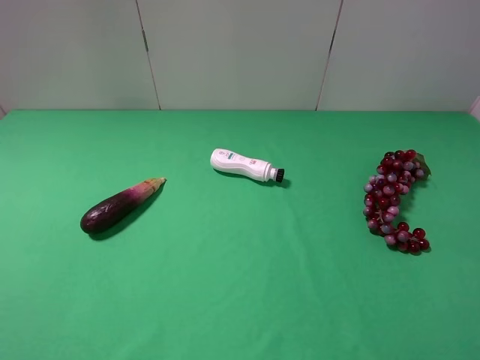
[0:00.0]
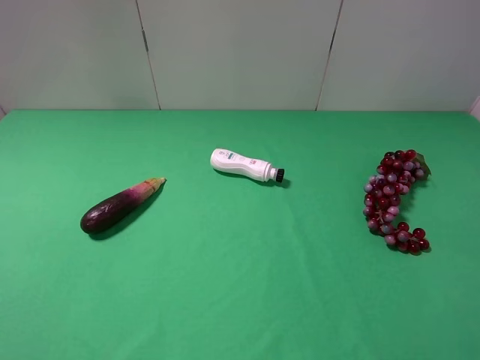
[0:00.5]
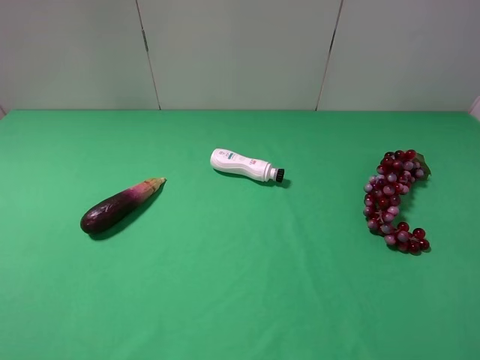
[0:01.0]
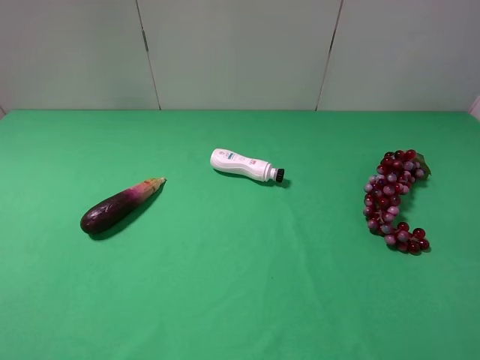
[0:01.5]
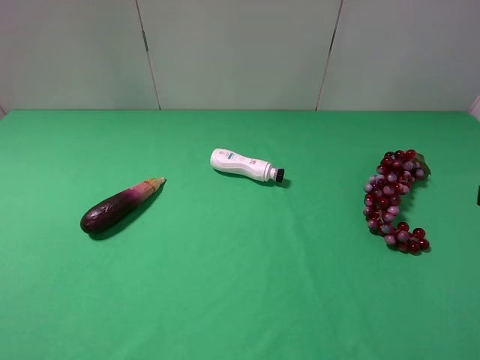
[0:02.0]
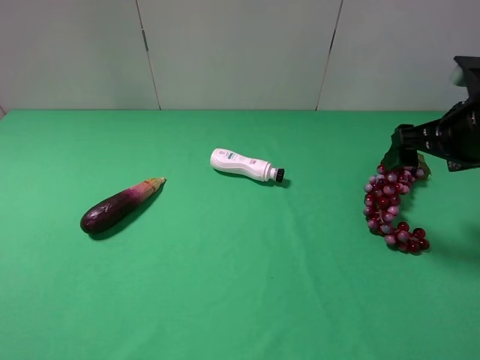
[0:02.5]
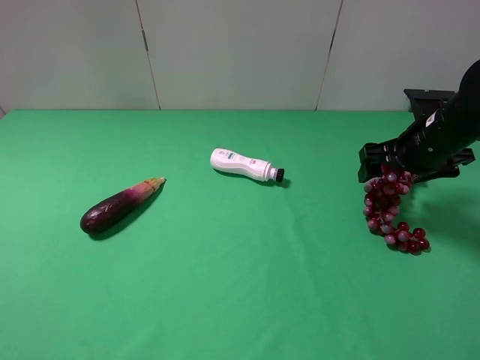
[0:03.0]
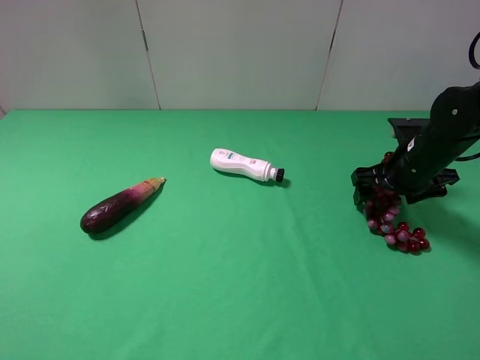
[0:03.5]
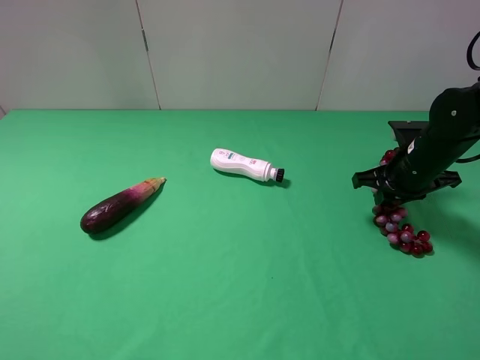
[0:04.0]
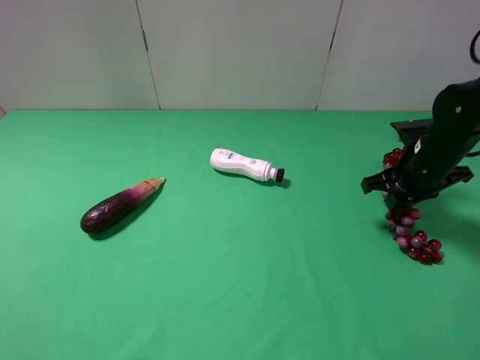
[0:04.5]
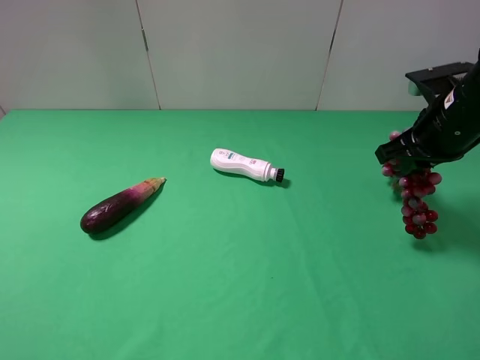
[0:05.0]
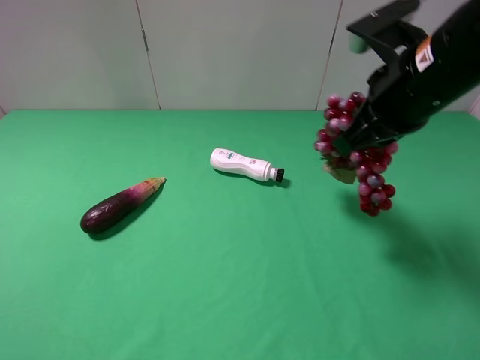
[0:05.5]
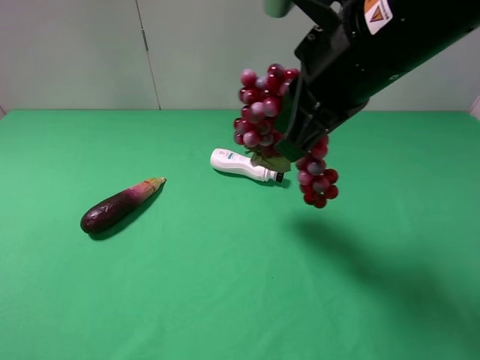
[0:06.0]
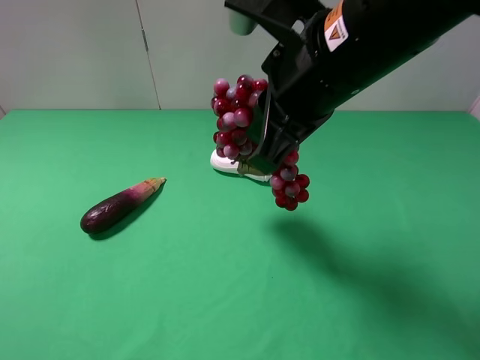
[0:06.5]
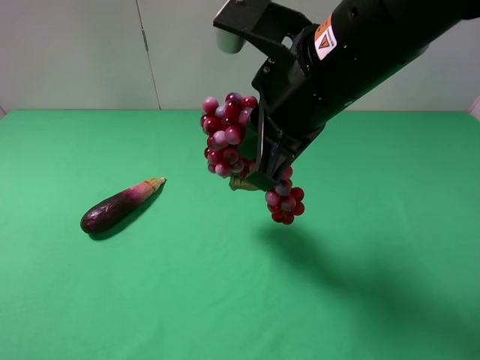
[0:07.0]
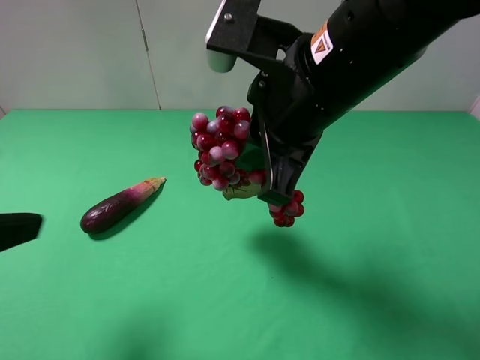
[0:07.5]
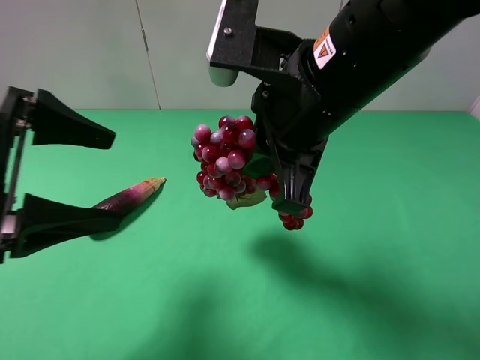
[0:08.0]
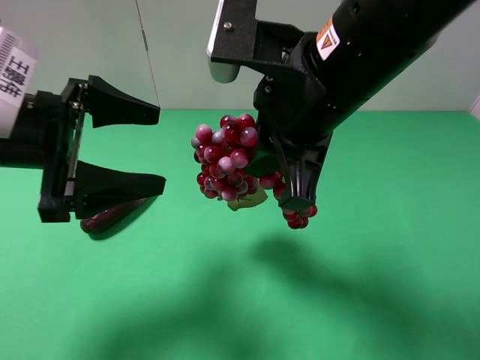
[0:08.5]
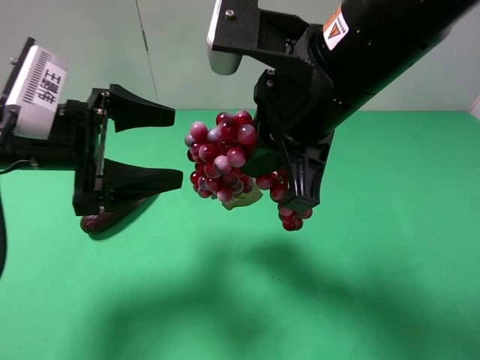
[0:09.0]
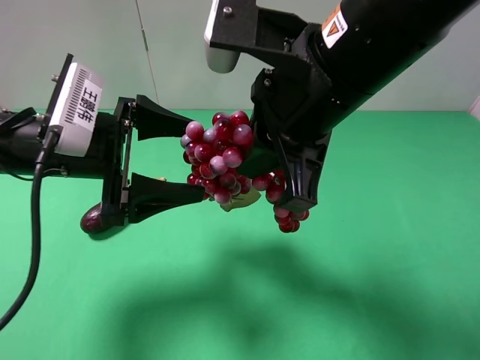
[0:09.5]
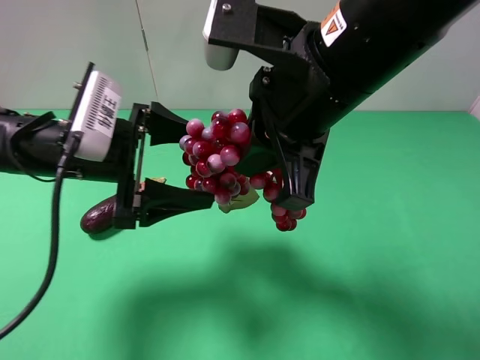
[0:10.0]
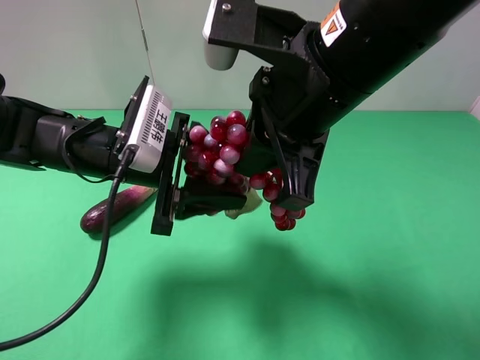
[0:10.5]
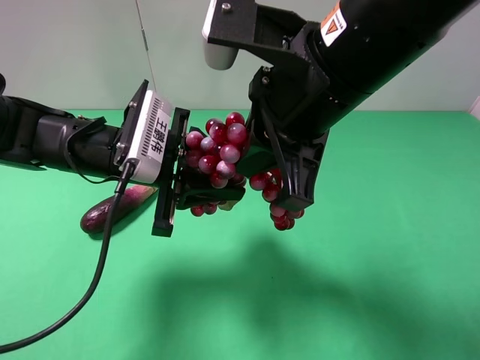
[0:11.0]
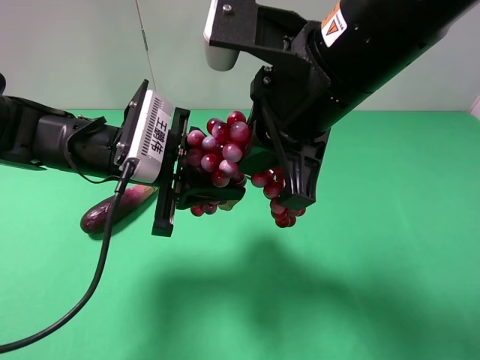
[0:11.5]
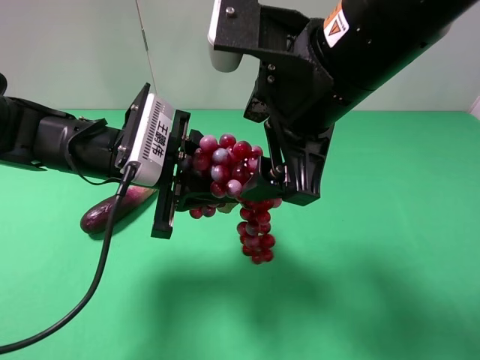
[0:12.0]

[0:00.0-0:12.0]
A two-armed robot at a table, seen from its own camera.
Task of the whole recording: use the right gripper to pick up the item and transfer it from the right gripper to the left gripper.
Step, 0:00.0 to 0:03.5: Use the right gripper to grab the grape on the right side of the table.
Step, 0:04.0 to 0:11.5: Pass the grape to the left gripper.
0:02.0 to 0:04.0: The right gripper is displaced forward and downward by about 25 cm, and closes.
0:04.0 to 0:06.0: The right gripper moves upward, to the left and backward, roughly 30 cm.
0:06.0 to 0:08.0: The left gripper travels forward and to the right by about 20 cm.
0:08.0 to 0:10.0: The left gripper moves downward, to the right and forward, some 10 cm.
0:10.0 to 0:12.0: The left gripper closes its fingers; the right gripper opens up.

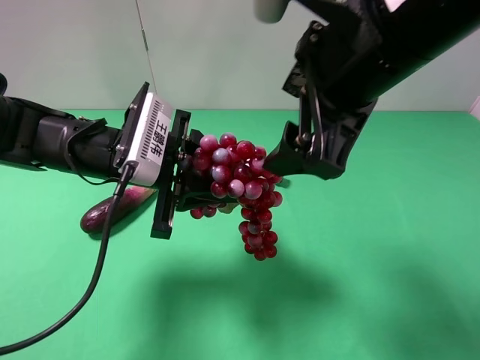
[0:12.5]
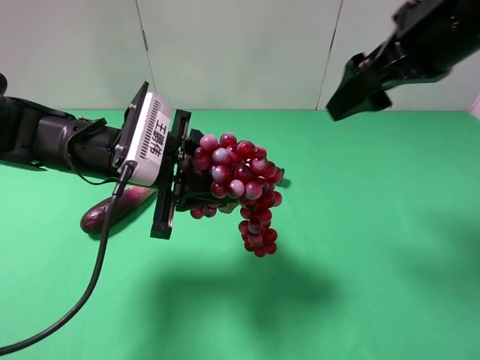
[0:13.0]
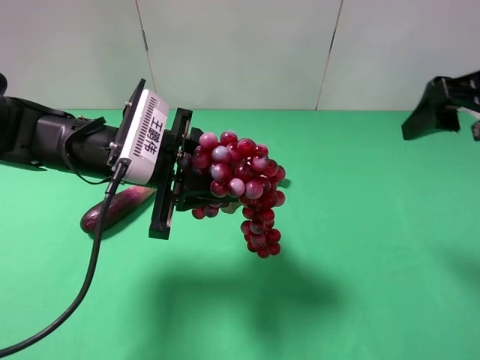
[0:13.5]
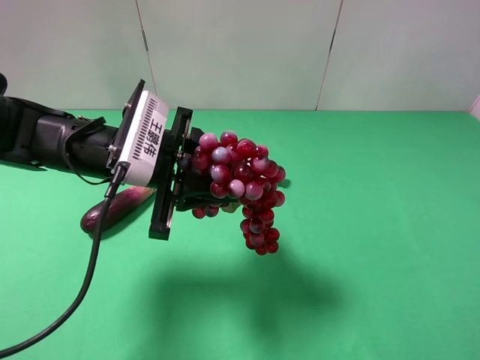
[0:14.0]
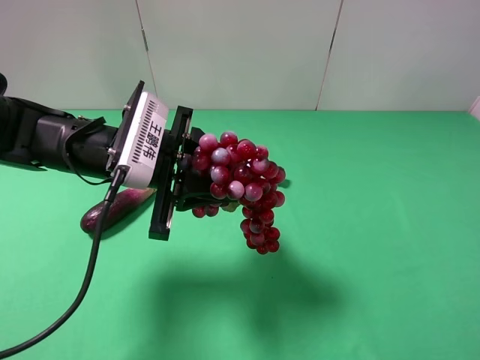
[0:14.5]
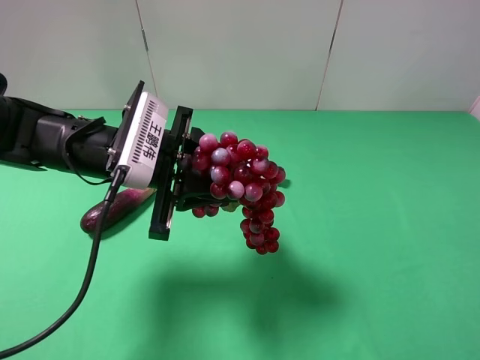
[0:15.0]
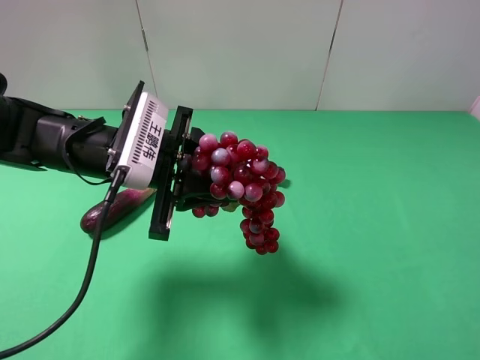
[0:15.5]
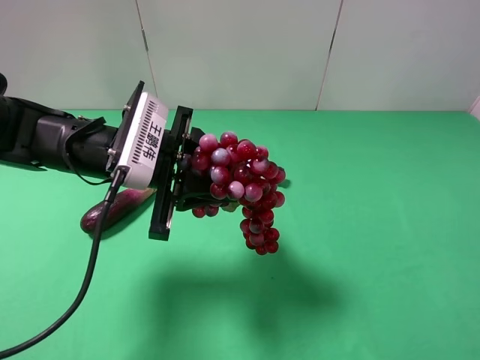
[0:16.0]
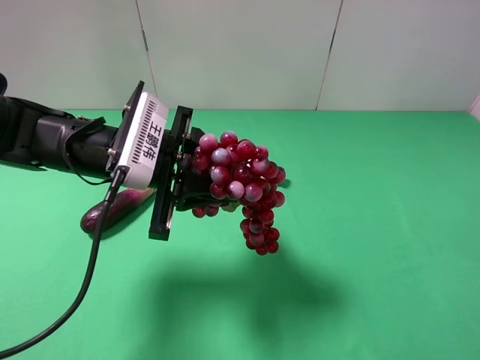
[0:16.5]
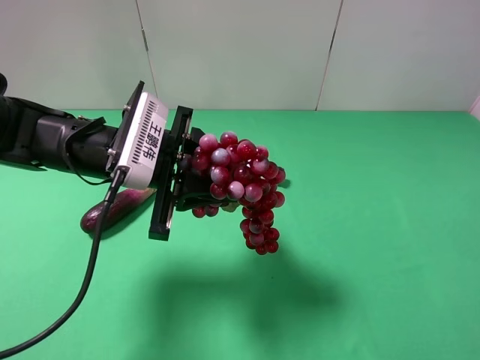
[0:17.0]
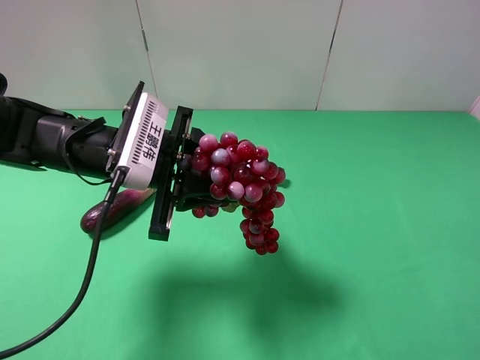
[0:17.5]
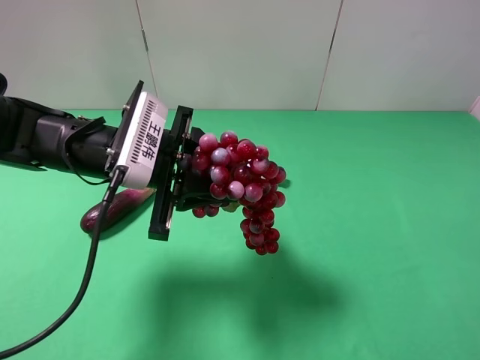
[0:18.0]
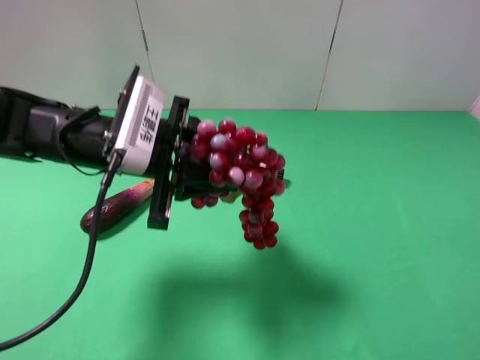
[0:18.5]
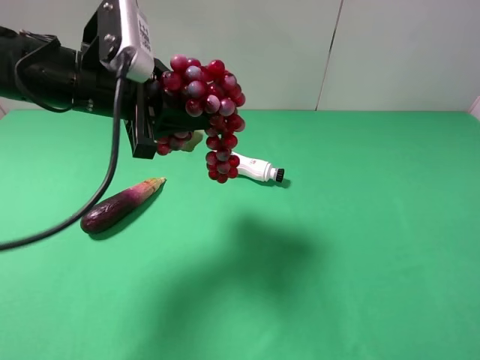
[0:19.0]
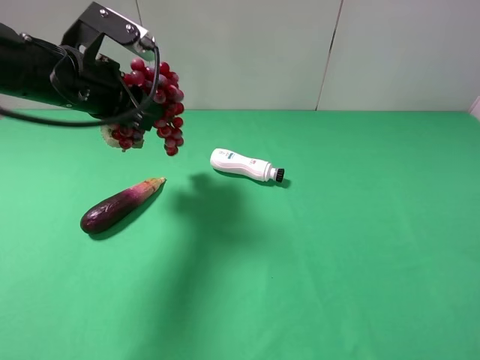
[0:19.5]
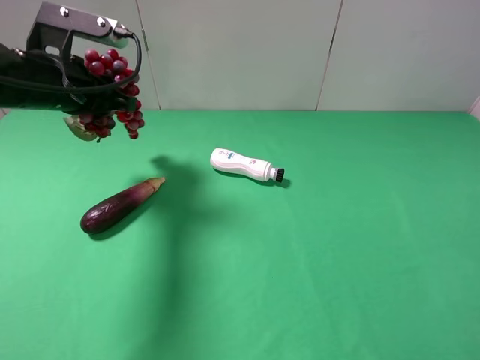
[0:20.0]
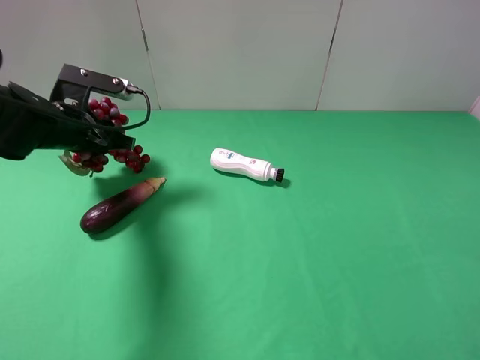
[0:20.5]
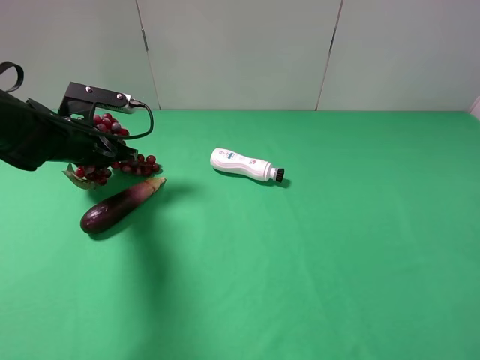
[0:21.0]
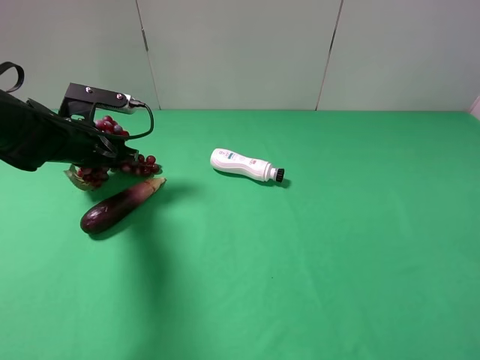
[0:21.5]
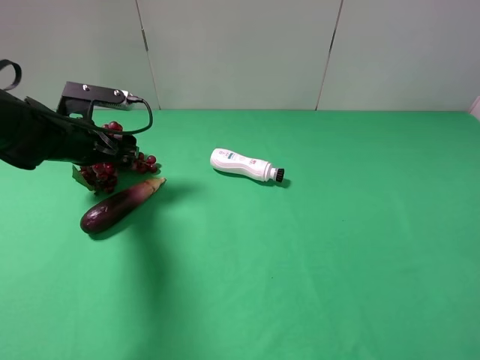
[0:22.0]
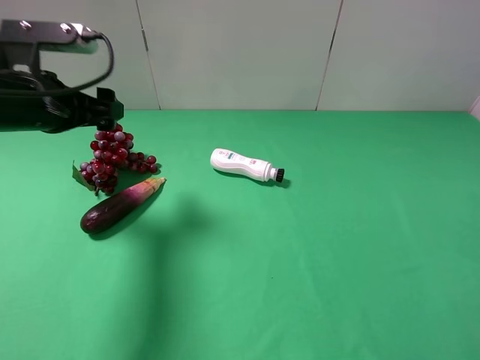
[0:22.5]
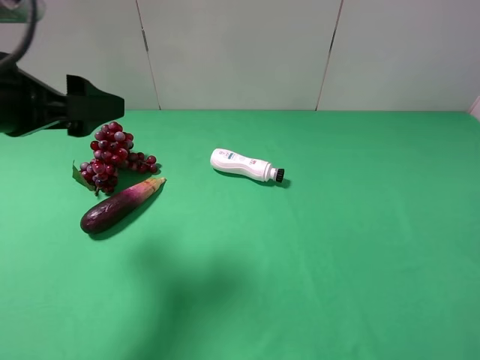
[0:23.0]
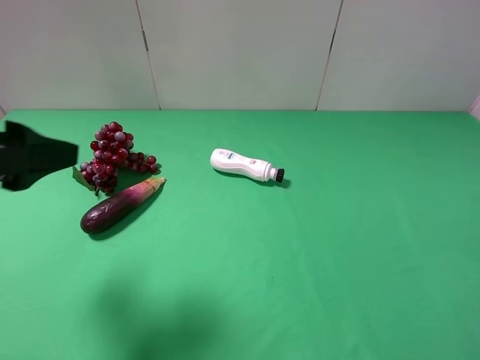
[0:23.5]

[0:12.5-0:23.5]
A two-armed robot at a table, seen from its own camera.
Task of the whole recording: use the right gripper to pick up the item and transfer it from the right gripper to the left gripper.
Step, 0:12.5 to 0:21.5: The left gripper places grape on the left side of the table.
0:12.5 to 0:14.5: The right gripper shifts about 25 cm to the right and backward.
0:16.0 to 0:18.0: There are only small adjustments of the grippers.
0:18.0 to 0:20.0: The left gripper heads to the left, forward and upward, covering roughly 15 cm.
0:20.0 to 0:21.5: The left gripper shifts about 10 cm downward, and opens up.
0:21.5 to 0:23.5: The left gripper goes some 25 cm backward and upward, and opens up.
